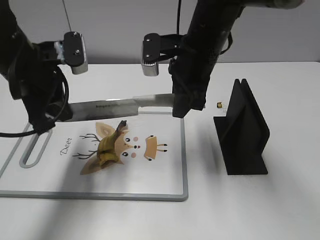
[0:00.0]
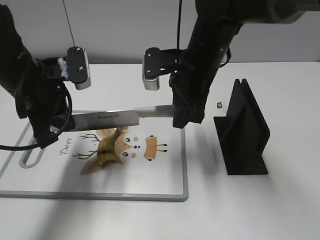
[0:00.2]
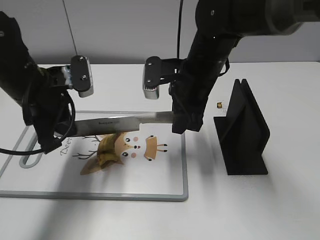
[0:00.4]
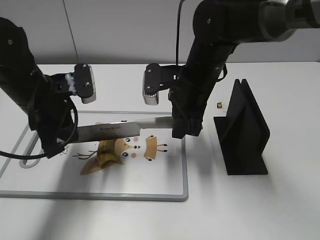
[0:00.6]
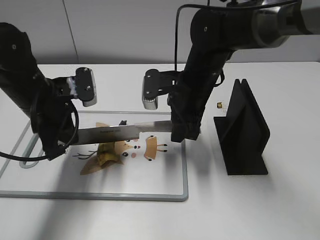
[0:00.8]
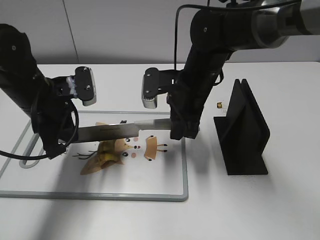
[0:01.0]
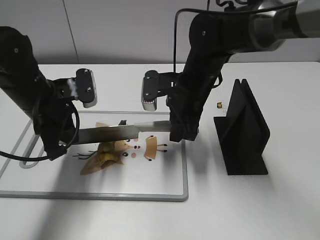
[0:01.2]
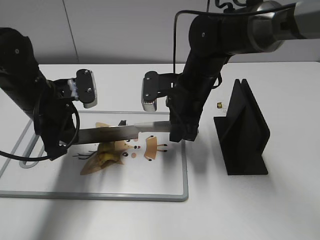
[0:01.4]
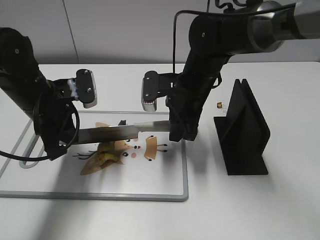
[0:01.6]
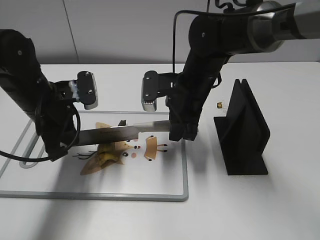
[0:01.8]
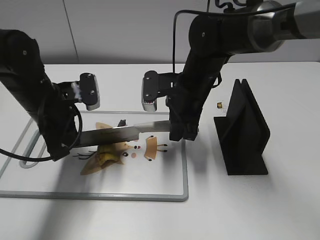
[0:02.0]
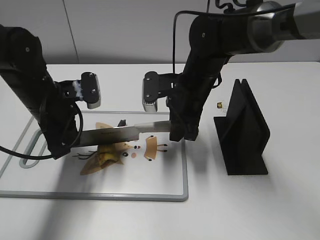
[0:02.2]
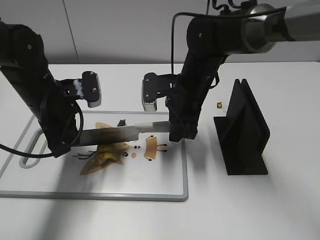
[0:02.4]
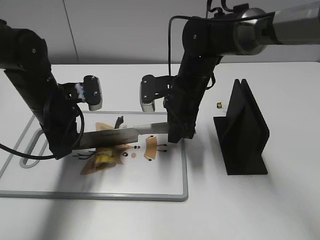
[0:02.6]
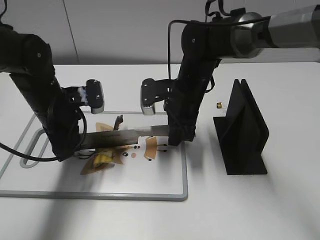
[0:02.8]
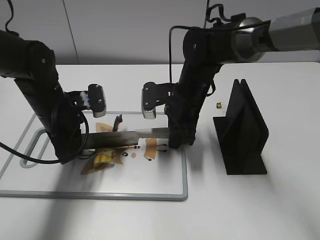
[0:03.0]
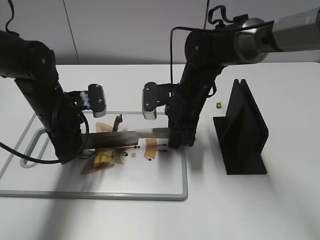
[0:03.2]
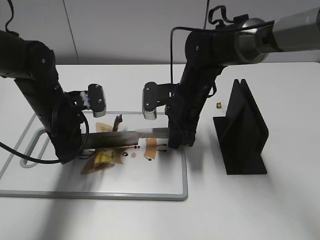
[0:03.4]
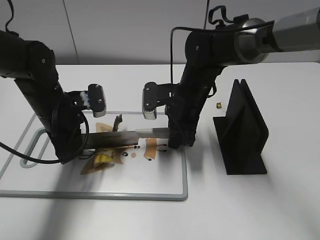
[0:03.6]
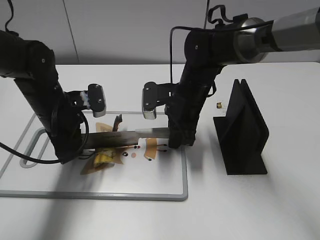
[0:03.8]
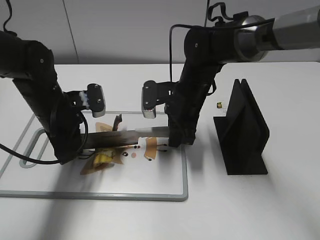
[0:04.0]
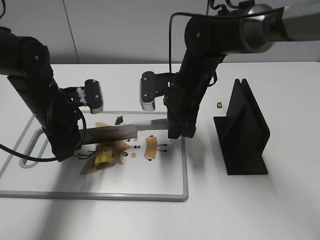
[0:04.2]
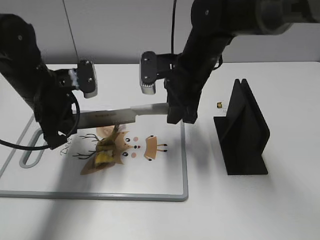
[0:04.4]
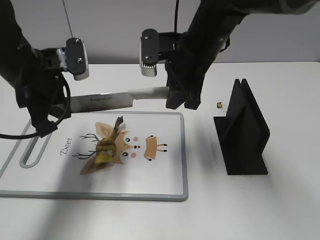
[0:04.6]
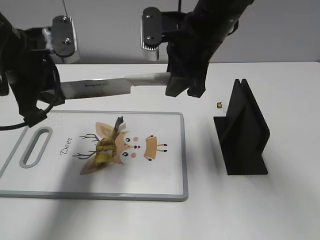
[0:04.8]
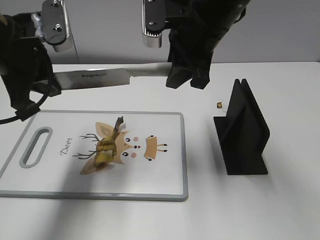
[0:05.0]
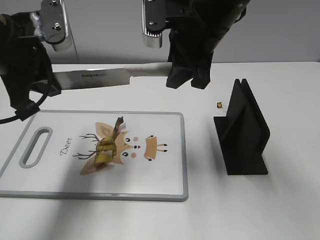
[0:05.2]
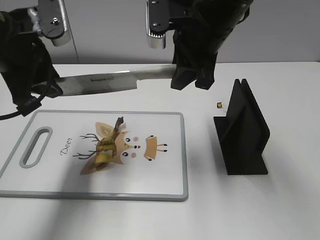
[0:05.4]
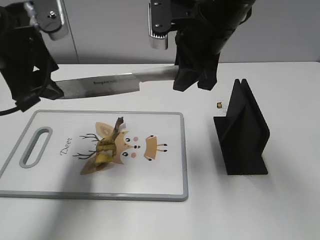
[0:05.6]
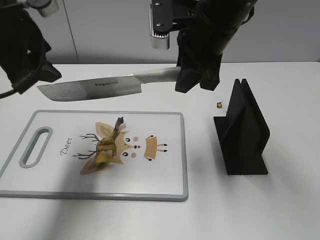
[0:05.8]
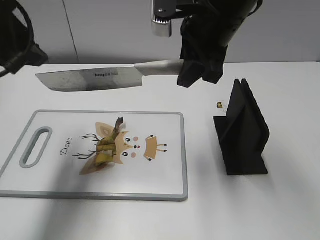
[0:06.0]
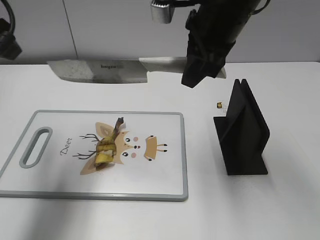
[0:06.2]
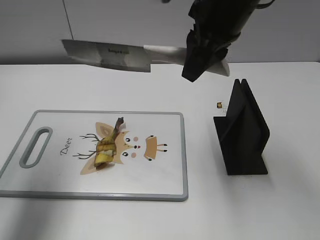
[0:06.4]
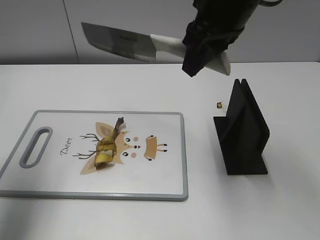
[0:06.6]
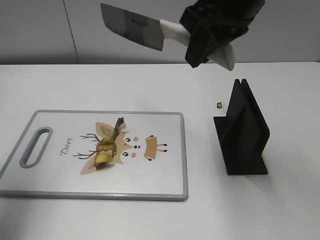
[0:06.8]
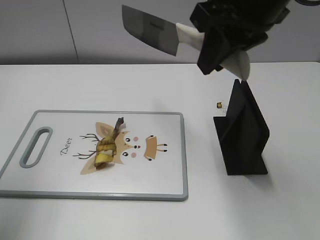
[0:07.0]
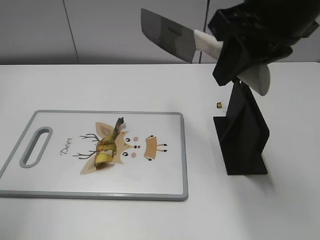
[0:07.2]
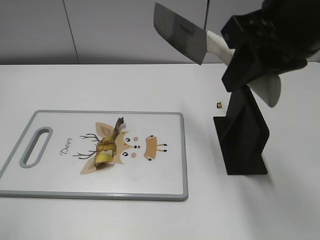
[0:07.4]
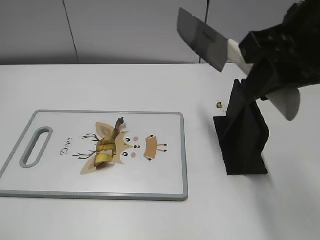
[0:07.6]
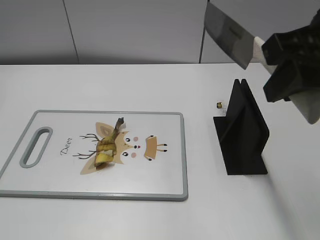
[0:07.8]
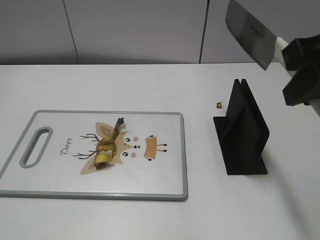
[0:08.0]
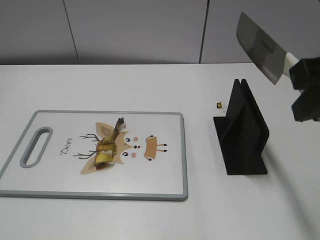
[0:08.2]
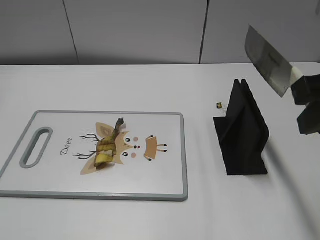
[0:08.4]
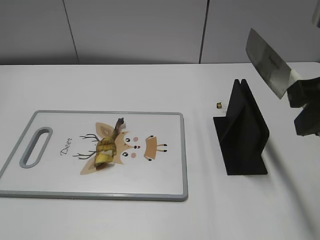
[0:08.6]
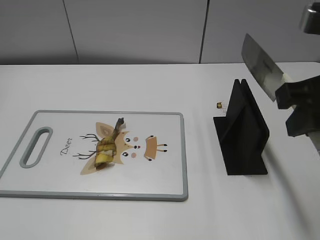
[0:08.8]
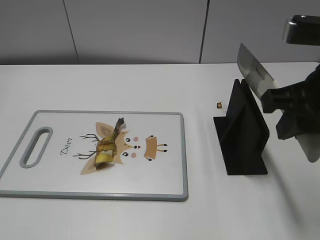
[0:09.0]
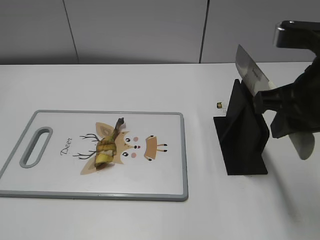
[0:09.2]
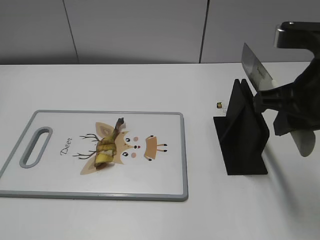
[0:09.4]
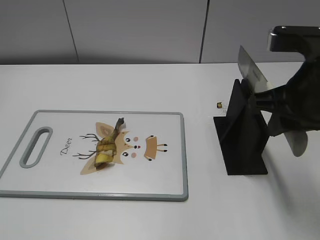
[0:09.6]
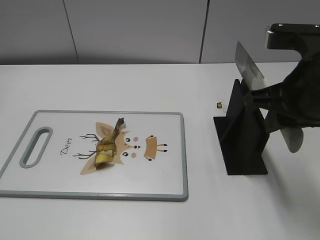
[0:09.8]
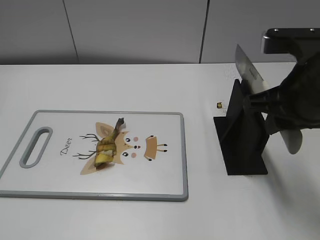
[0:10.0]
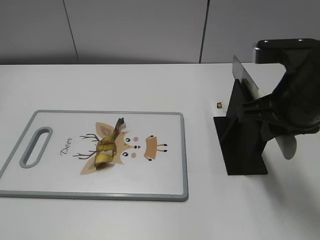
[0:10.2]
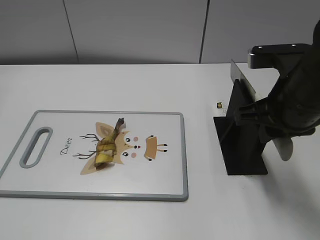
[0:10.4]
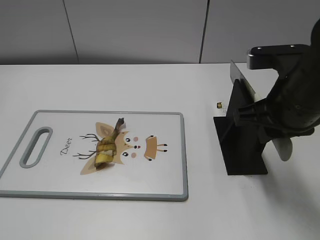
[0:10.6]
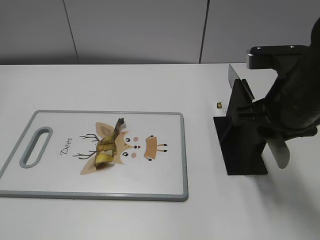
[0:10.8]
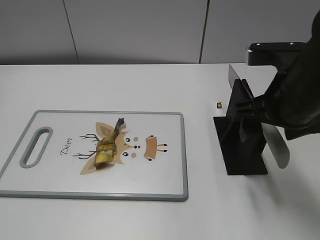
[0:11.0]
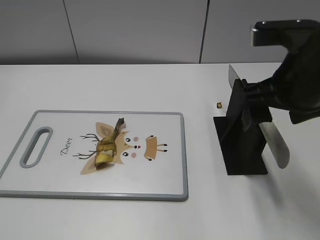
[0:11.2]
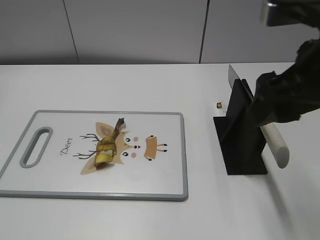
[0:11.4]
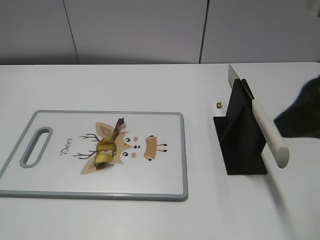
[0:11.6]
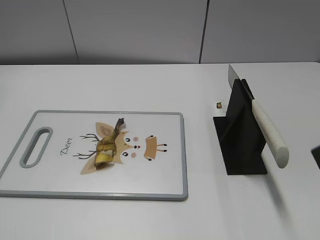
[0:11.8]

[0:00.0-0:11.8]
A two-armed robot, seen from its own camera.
Task of the whole recording: cut banana.
Step, 0:00.0 to 0:02.2: Lift the knife with your right hand.
Step, 0:02.4 to 0:06.2: Cut the banana with your right hand.
Step, 0:06.4 to 0:09.6: Lift the knife with your right hand.
0:00.0 to 0:01.4: The two grippers go some 5 cm downward.
0:01.4 to 0:03.0: There are only small adjustments of the grippers.
0:03.0 to 0:04.4: The two grippers go about 5 cm upward.
0:04.4 to 0:06.0: The two grippers go some 15 cm upward. The left gripper opens up.
0:06.0 to 0:07.4: The right gripper goes approximately 15 cm backward, upward and to the right. The left gripper shifts roughly 20 cm backward and to the left.
0:07.4 to 0:08.8: The left gripper moves backward and downward, approximately 15 cm, while the right gripper is displaced to the right by some 5 cm.
0:08.8 to 0:10.4: The right gripper goes about 10 cm downward and forward.
0:10.4 to 0:11.8: The right gripper travels backward and upward by some 15 cm, and opens up.
